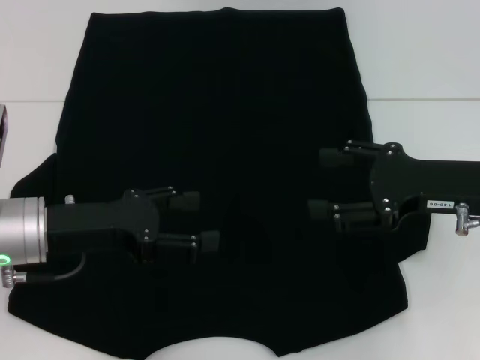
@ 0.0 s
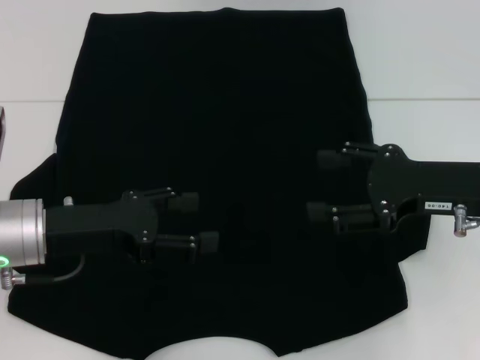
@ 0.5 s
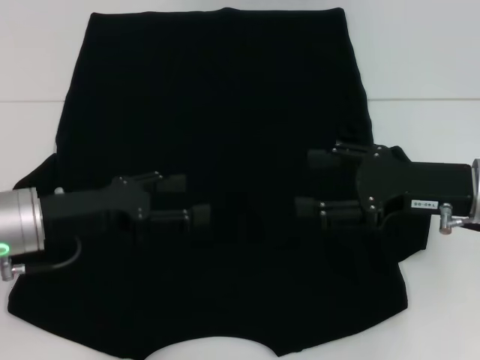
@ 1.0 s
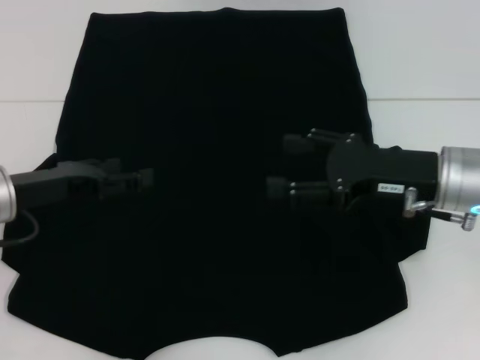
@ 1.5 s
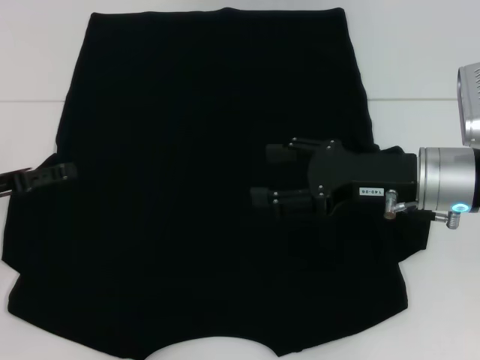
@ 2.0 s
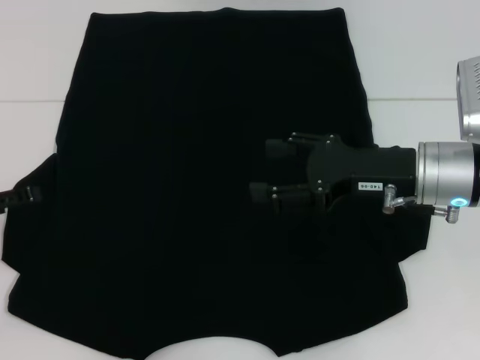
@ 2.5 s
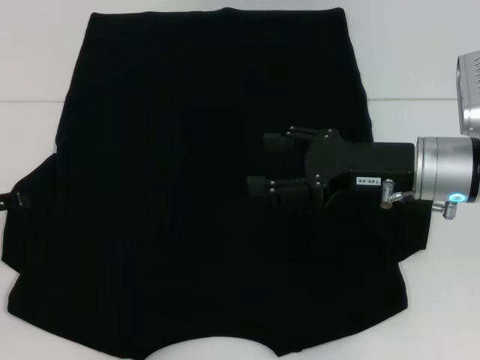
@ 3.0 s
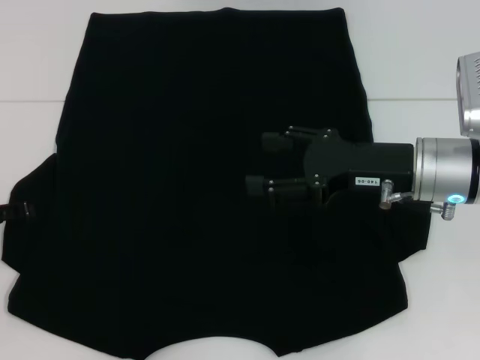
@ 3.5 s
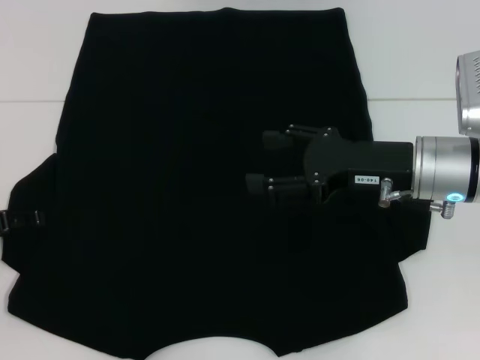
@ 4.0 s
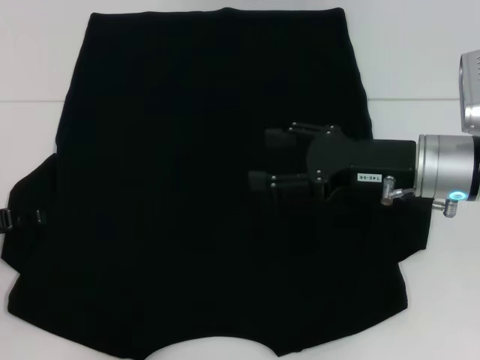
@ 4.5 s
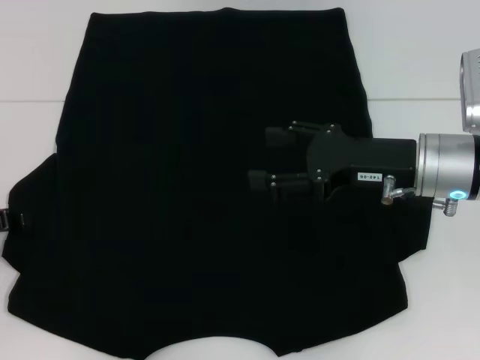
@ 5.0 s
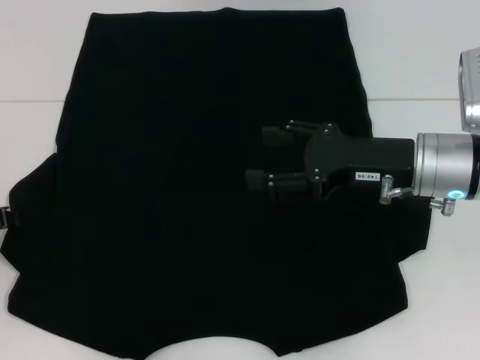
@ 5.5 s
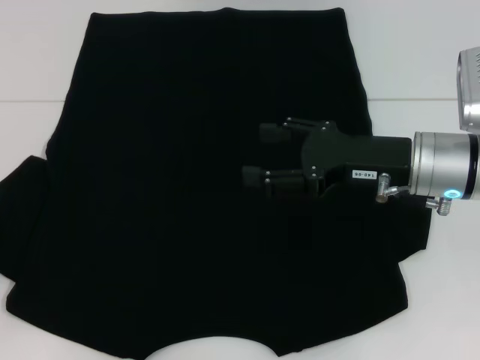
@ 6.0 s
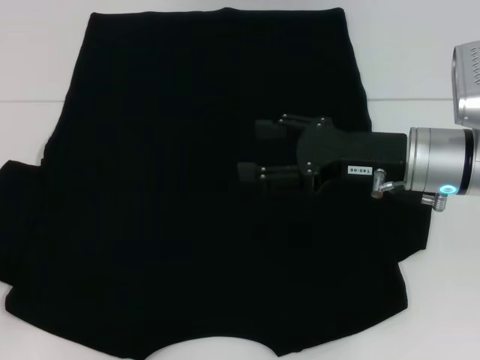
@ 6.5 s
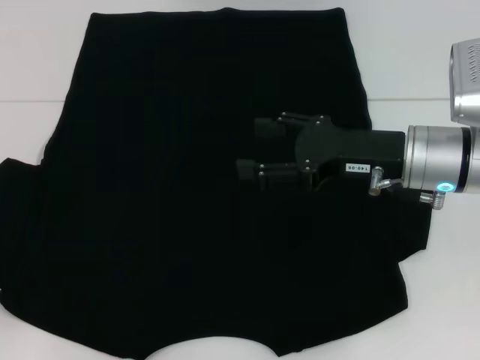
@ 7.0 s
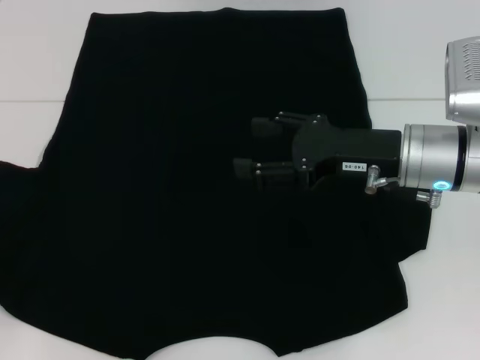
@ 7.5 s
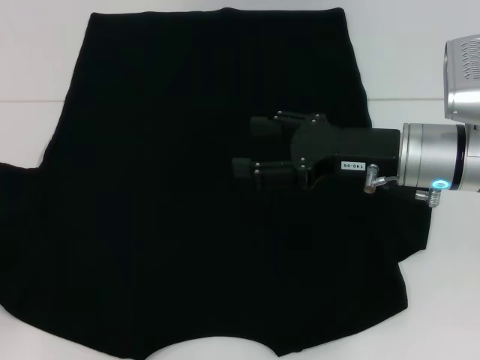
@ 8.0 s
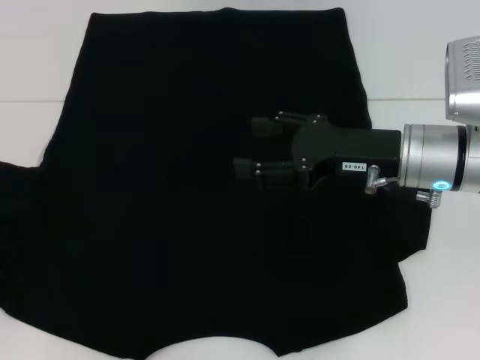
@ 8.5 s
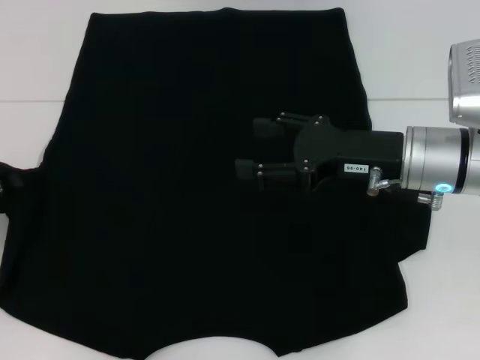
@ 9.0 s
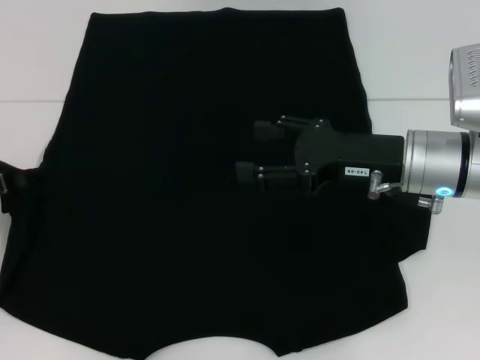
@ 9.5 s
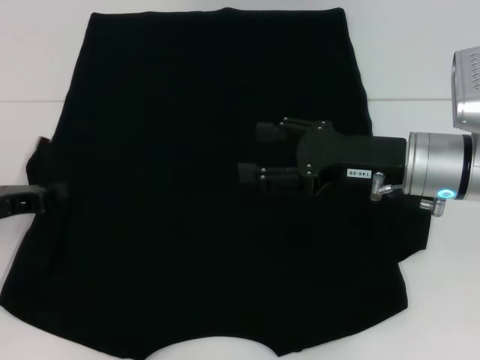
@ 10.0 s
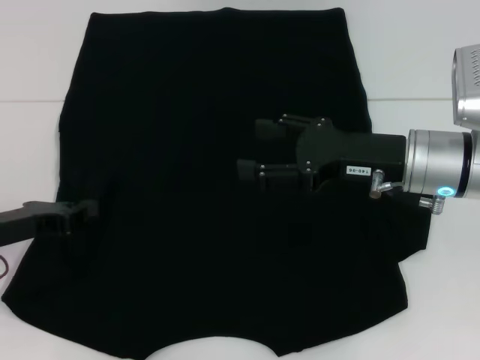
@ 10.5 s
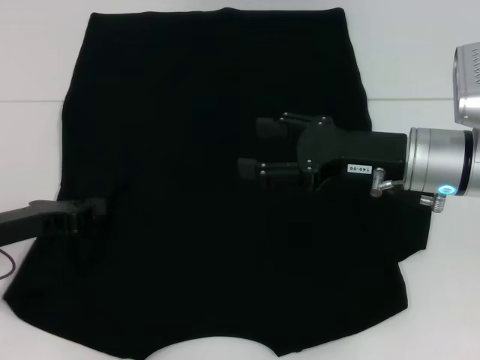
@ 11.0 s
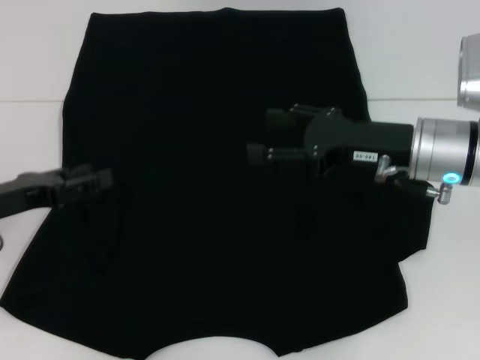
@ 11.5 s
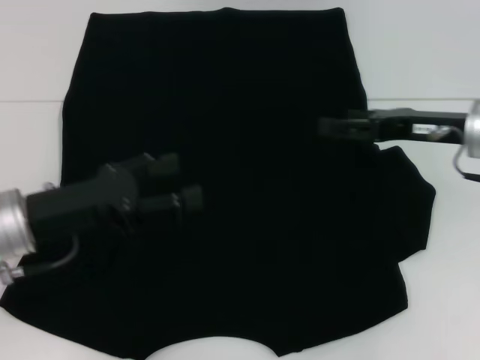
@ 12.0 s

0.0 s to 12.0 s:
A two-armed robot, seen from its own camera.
Step, 0.0 to 11.0 s: Fold the bottom left sleeve with your left hand.
0.0 to 2.0 s: The left gripper is displaced to the left by roughly 10 cm. The right gripper shifts approximately 5 cm to the left.
4.0 to 6.0 s: The left gripper closes its fingers.
6.0 to 8.0 s: There are only small adjustments of the grippers.
8.0 to 10.0 s: The left gripper is displaced to the right by roughly 5 cm.
10.0 to 12.0 s: The two grippers go some 10 cm to the right. The left gripper opens its fingers.

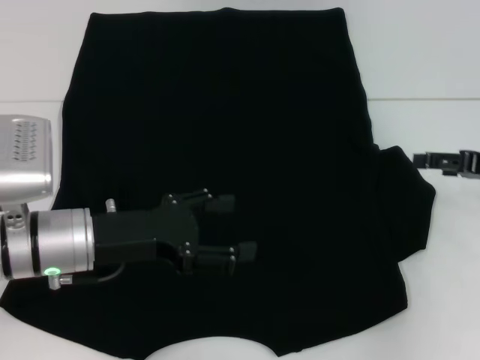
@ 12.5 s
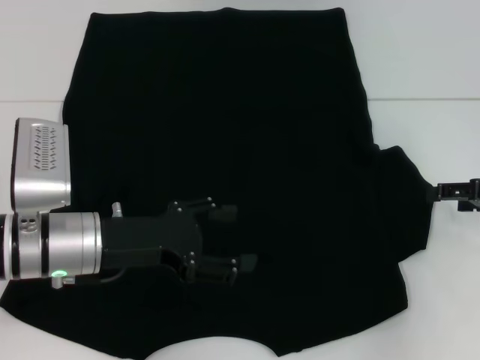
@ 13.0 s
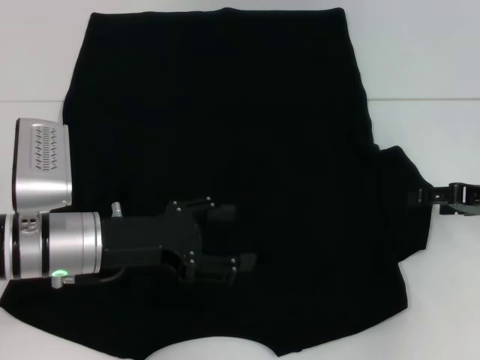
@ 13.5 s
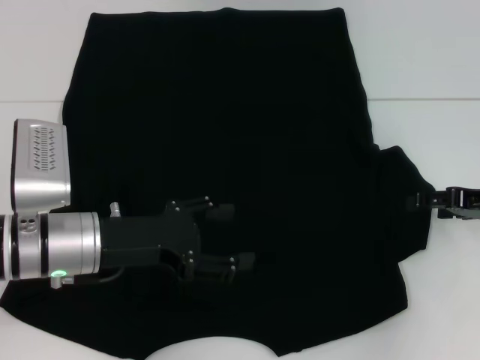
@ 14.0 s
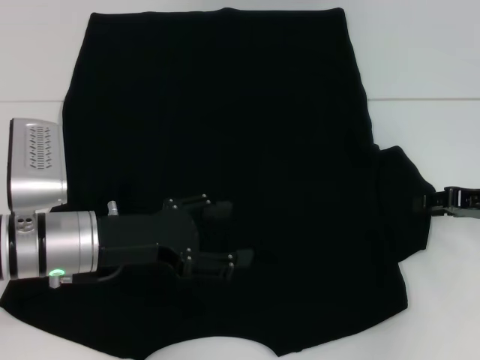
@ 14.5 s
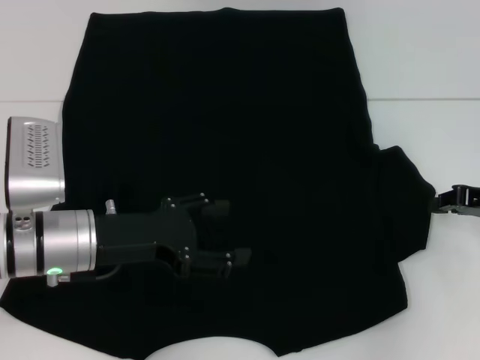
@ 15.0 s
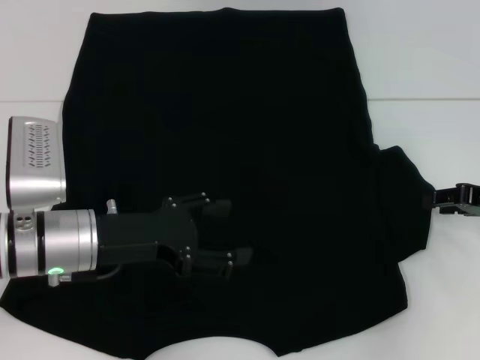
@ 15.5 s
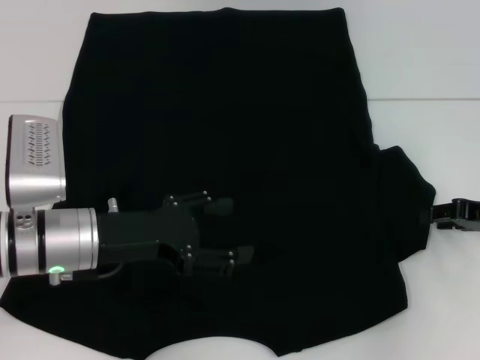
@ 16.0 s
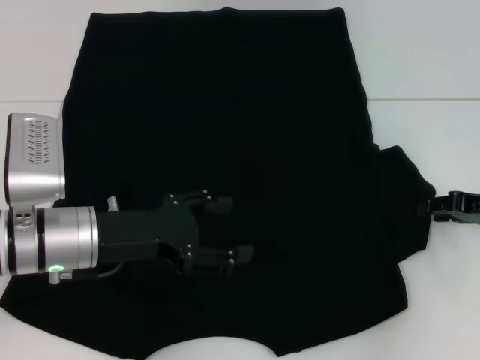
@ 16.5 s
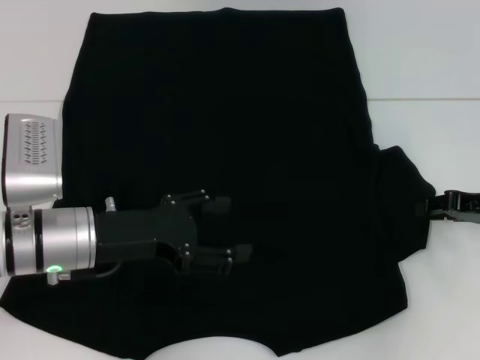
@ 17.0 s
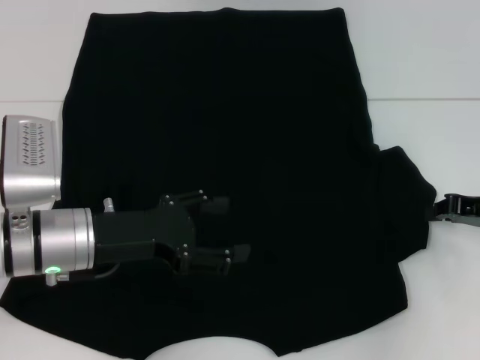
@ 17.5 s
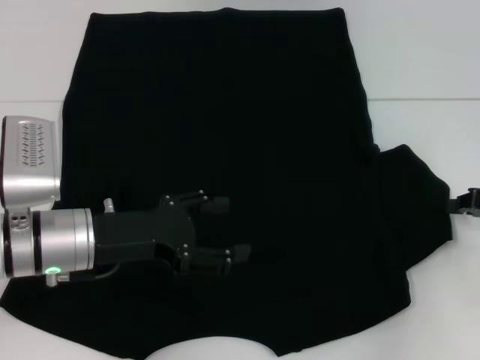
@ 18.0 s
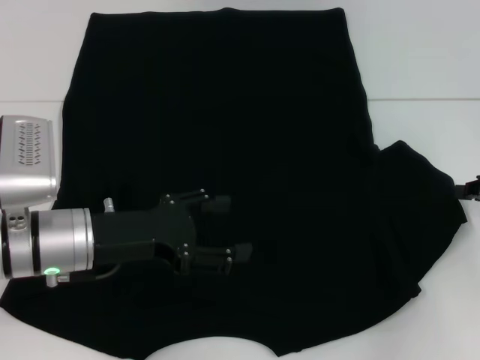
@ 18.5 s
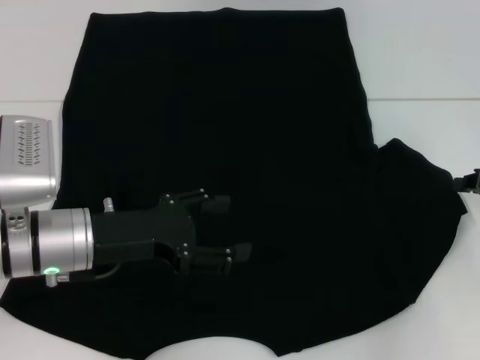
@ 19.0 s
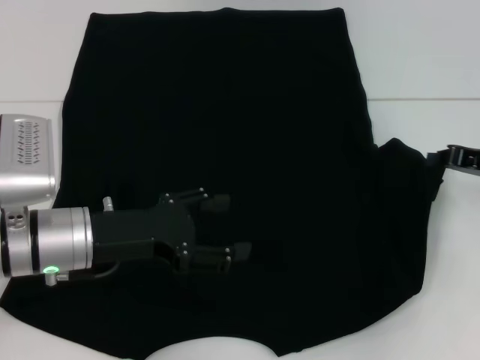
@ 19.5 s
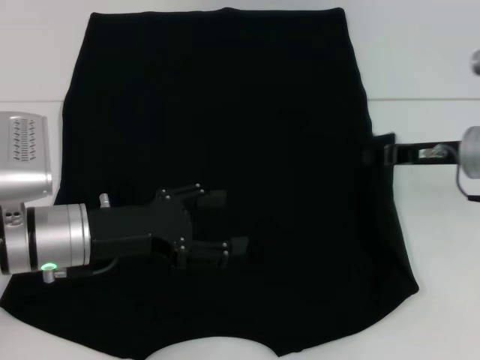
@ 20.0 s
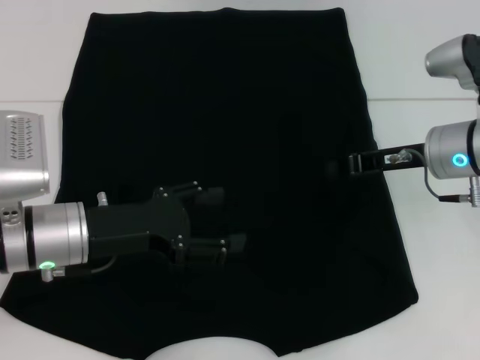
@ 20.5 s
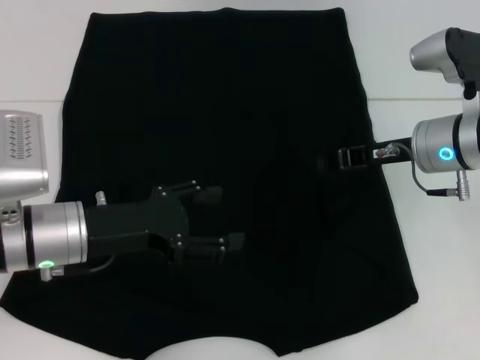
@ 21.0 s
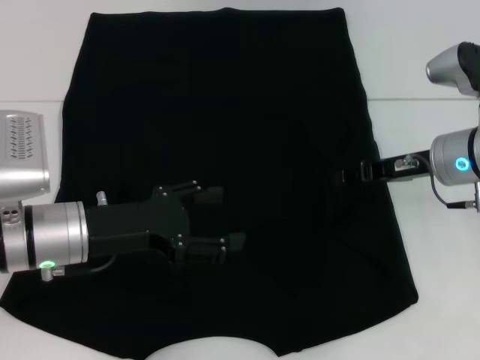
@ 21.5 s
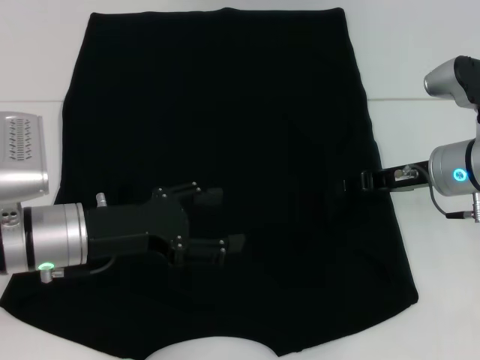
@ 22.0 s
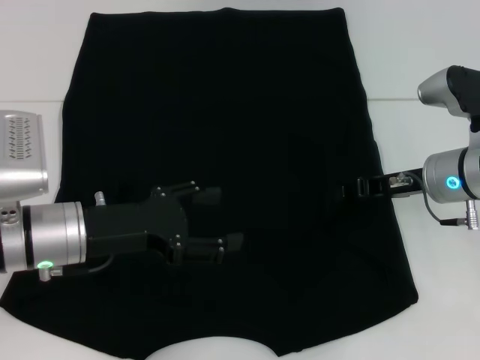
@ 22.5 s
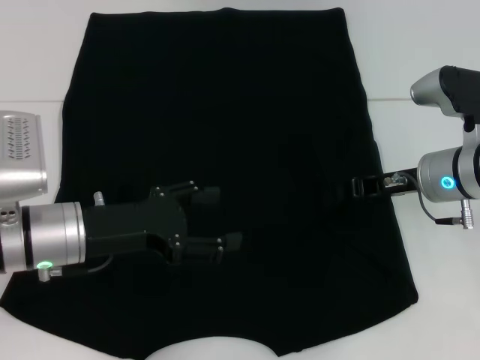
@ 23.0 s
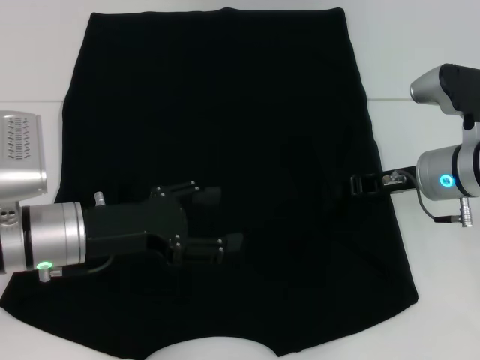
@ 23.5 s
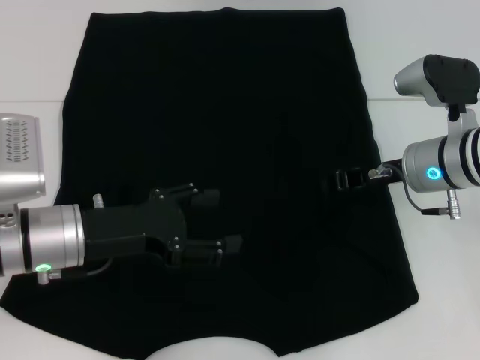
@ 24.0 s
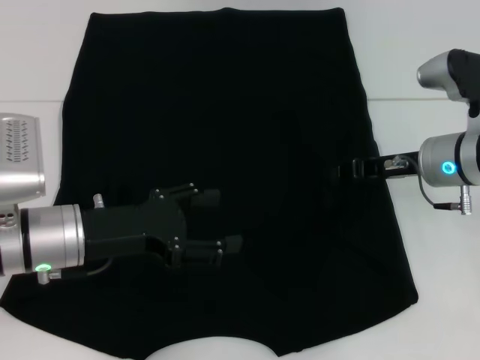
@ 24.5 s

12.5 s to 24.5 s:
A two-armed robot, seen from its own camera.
12.5 to 14.5 s: The grippers make only small movements.
14.5 to 16.5 s: The right gripper closes and opens again.
16.5 to 18.5 s: The right gripper closes up.
18.5 to 20.5 s: The right gripper moves to the left, approximately 15 cm.
20.5 to 22.5 s: The right gripper opens its fingers.
22.5 to 24.5 s: There are only small adjustments of the grippers.

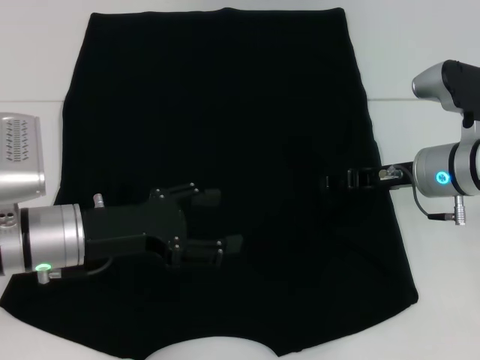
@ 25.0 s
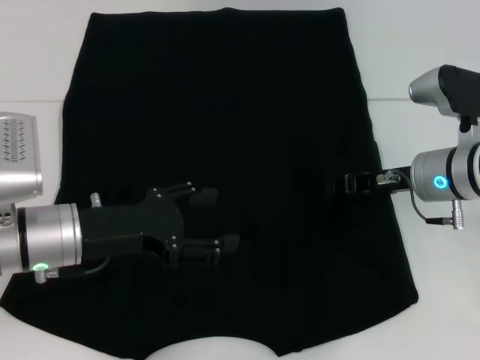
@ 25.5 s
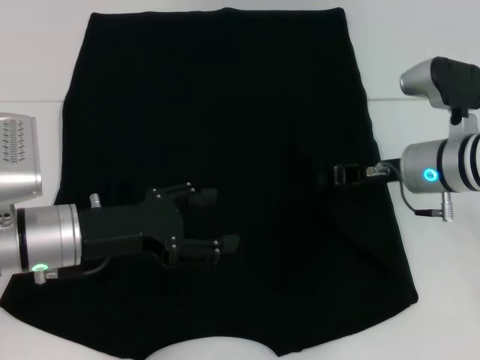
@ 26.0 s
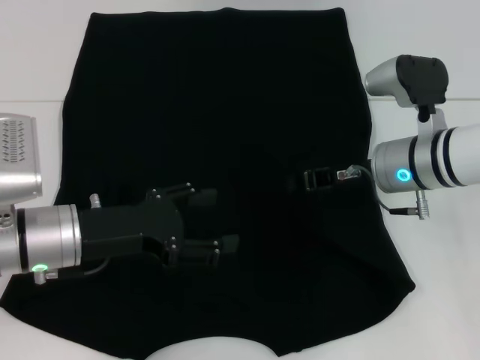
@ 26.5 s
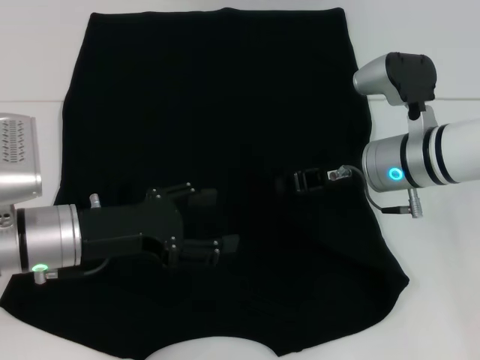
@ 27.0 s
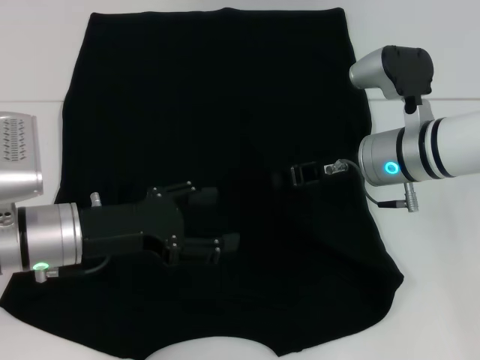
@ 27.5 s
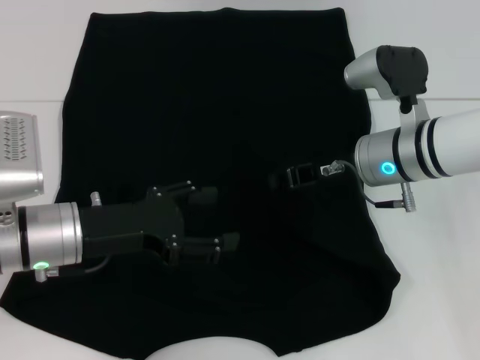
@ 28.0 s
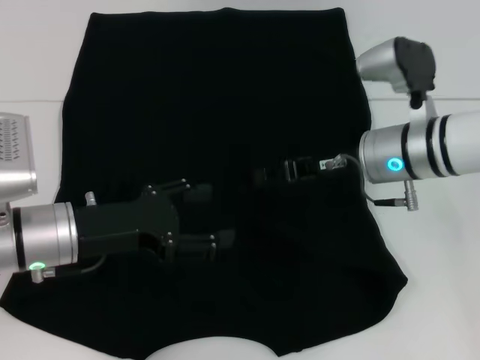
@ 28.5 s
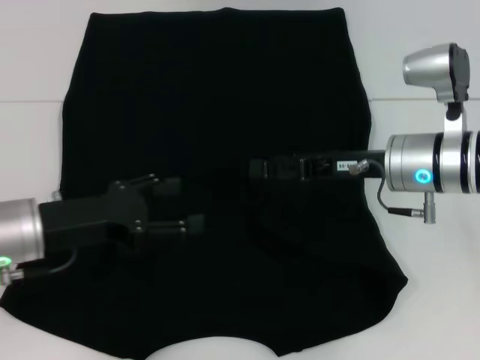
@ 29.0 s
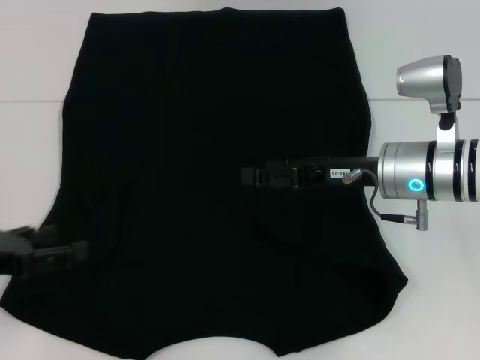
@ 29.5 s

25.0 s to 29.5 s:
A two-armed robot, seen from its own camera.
Step, 25.0 to 29.0 s: Fold the bottom right sleeve with your right hand.
25.0 to 27.0 s: The right gripper travels to the left by approximately 5 cm, and closes up.
27.0 to 29.5 s: The right gripper opens its fingers. The left gripper travels to the left by approximately 10 cm.
